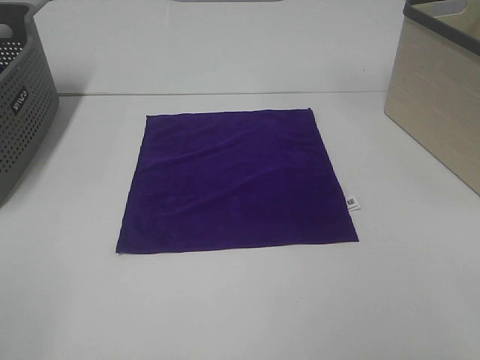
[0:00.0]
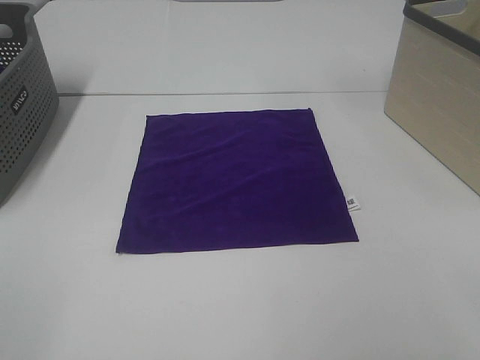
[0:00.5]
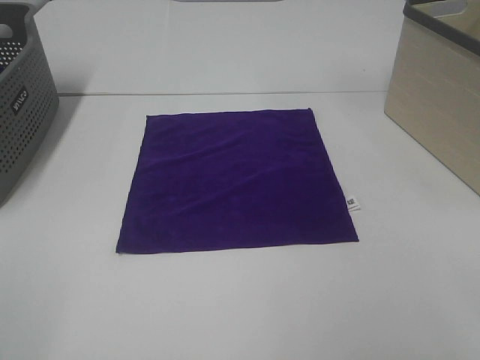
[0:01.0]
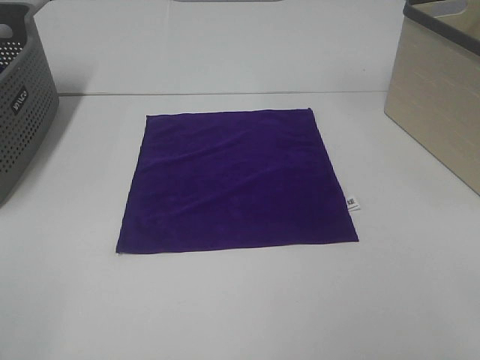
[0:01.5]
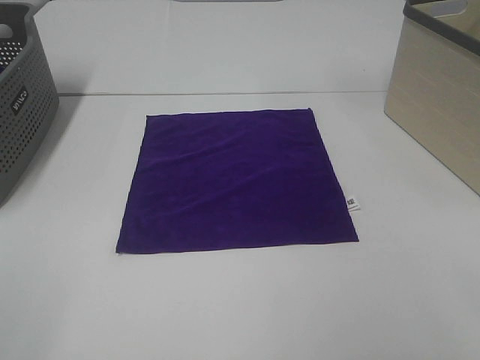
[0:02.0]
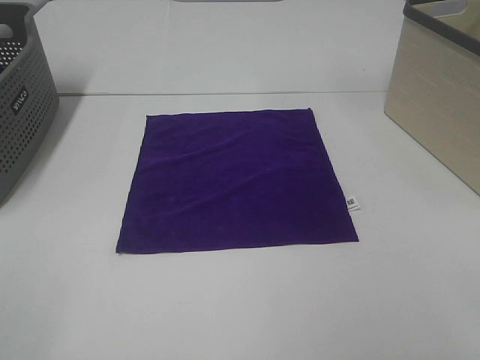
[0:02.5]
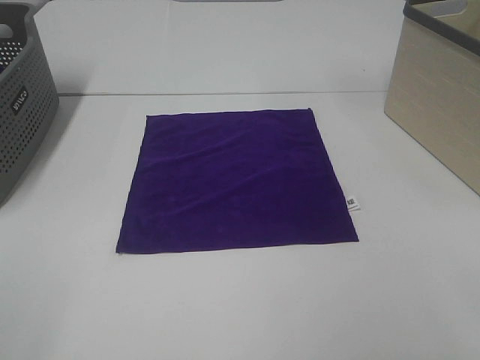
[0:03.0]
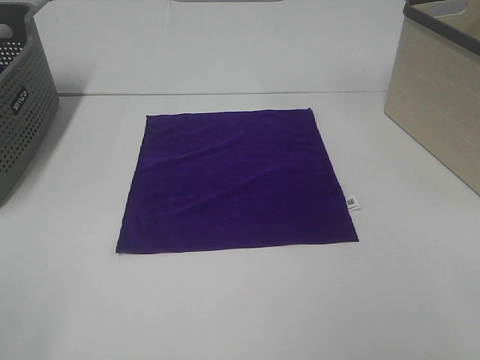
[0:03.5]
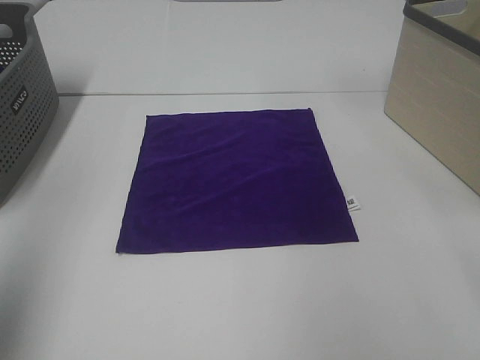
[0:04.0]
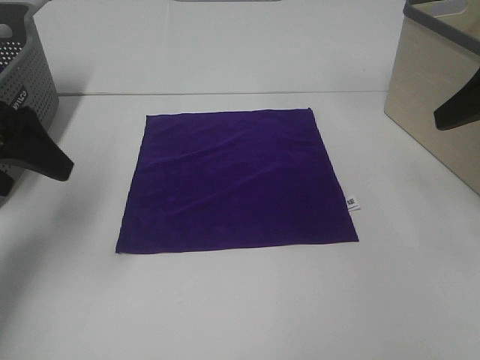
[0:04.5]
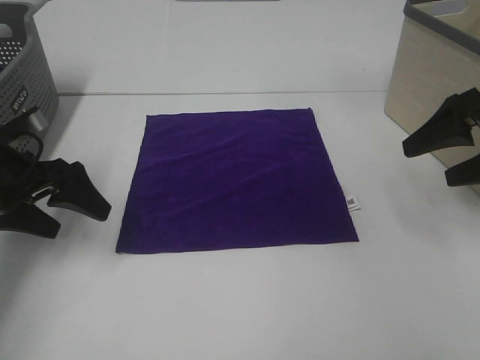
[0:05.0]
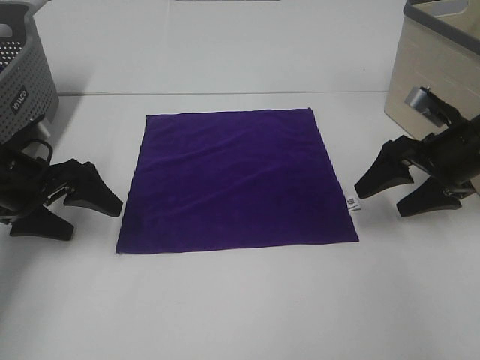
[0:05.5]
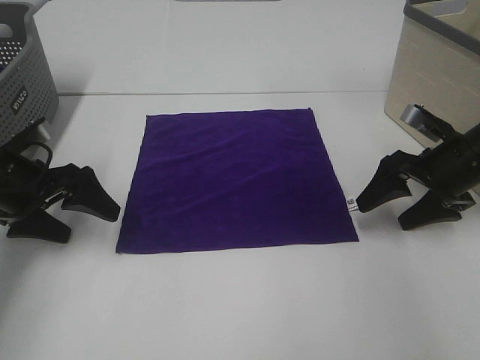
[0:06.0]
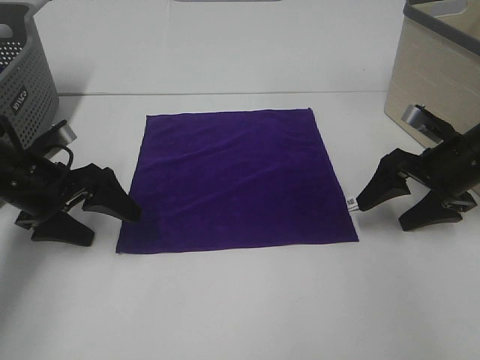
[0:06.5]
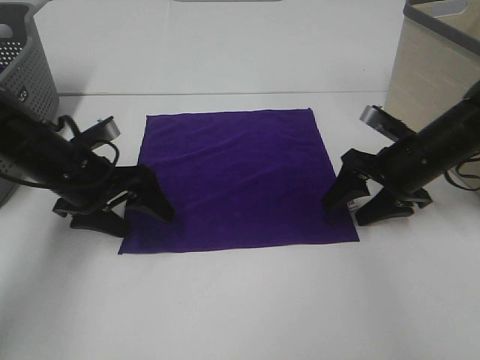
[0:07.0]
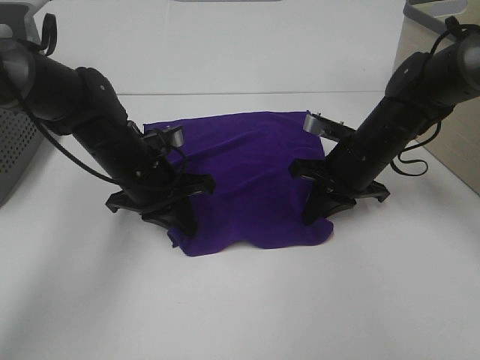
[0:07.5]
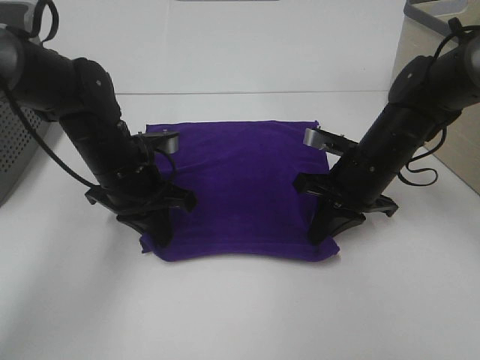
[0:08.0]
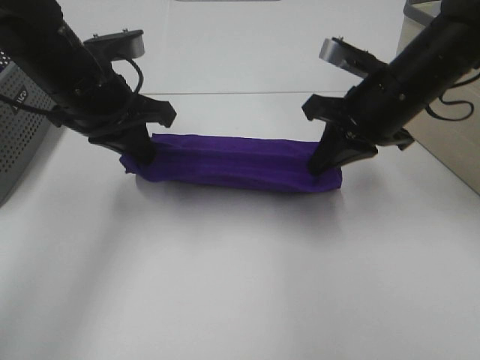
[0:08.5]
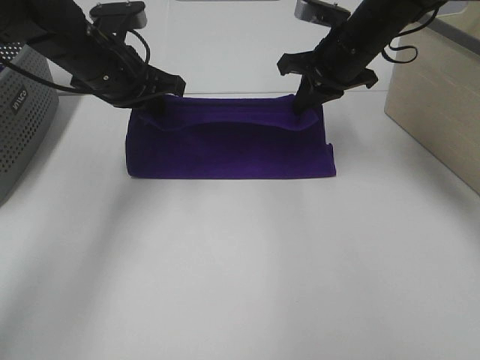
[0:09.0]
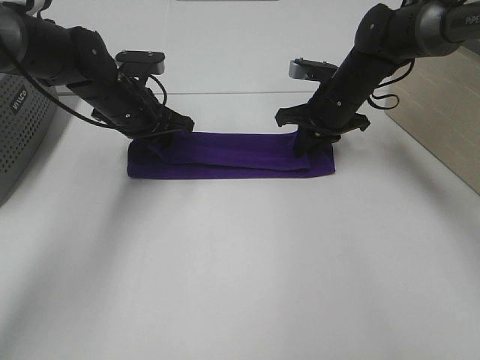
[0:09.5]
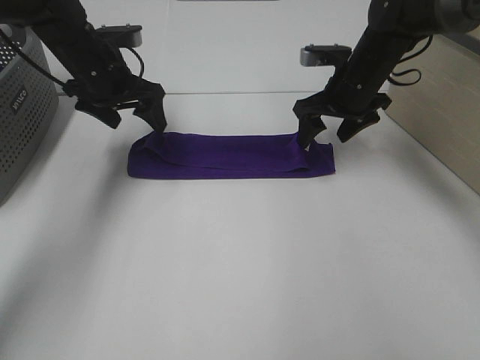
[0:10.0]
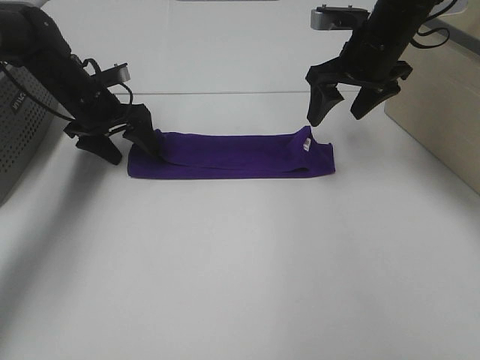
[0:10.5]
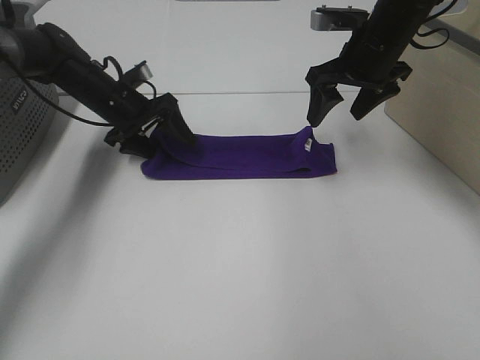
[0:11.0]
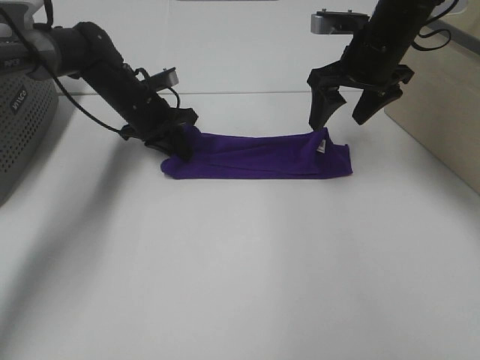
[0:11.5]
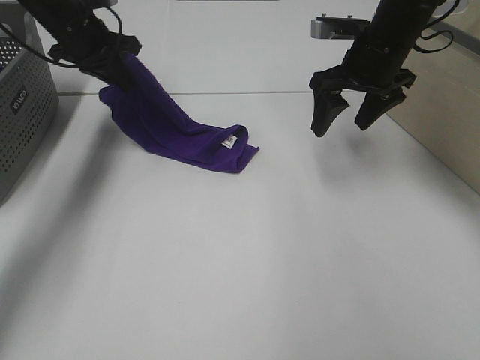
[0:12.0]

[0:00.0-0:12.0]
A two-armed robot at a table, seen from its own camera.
Task of the whole recording: Fold towels.
Step, 0.0 to 7.5 s: Left hand: grab the bottom left corner of purple towel.
Step, 0.0 to 7.5 s: Right hand: grab the bottom right corner of purple towel.
Step, 8.0 to 9.5 s: Left hand: fold the purple towel up.
Step, 8.0 to 9.5 s: Right hand: fold the purple towel up.
0.0 to 2.0 s: Neither gripper changes place.
2.0 to 4.0 s: The left gripper travels forward and upward by about 15 cm.
4.0 to 6.0 s: Both grippers move downward and forward, approximately 30 cm.
6.0 to 8.0 s: The left gripper goes about 15 cm to the right, and closes its fingers. The right gripper is displaced to the left by roughly 10 cm, and closes up.
8.0 to 10.0 s: The left gripper moves forward, upward and to the left, some 15 cm, and opens its fingers; the right gripper is displaced forward and upward by about 15 cm, and opens.
10.0 to 12.0 s: The left gripper goes roughly 5 cm forward, moves roughly 10 cm downward and comes back, and closes its fingers. Meanwhile the right gripper heads upward, covering roughly 5 cm.

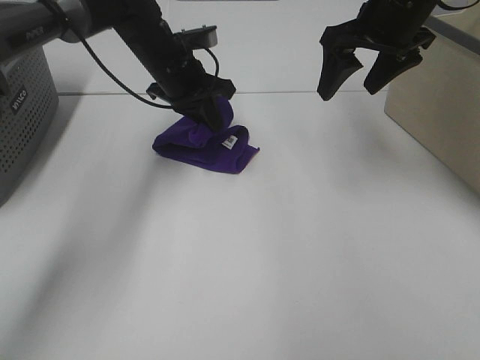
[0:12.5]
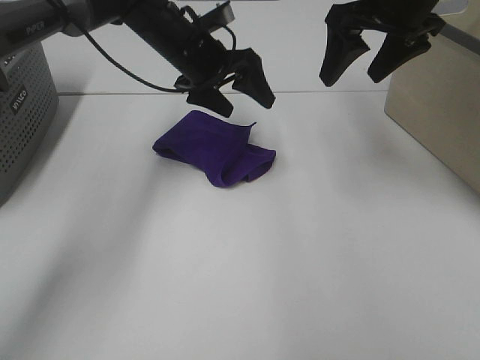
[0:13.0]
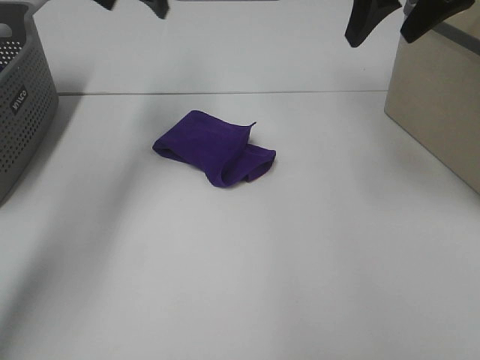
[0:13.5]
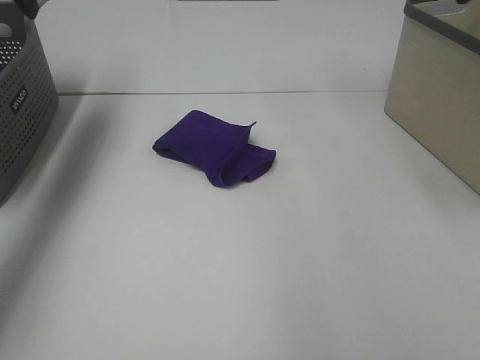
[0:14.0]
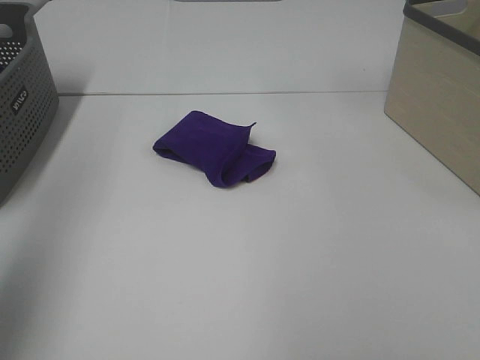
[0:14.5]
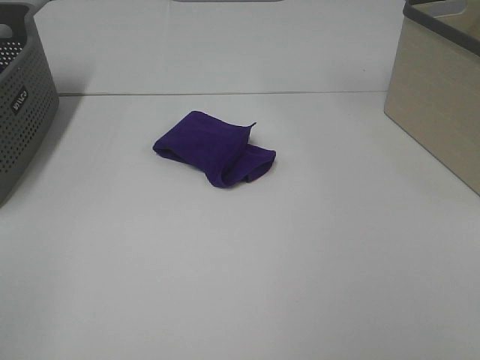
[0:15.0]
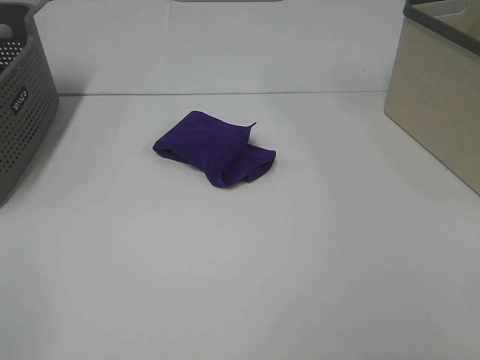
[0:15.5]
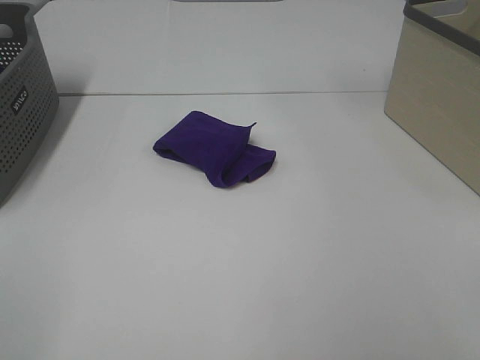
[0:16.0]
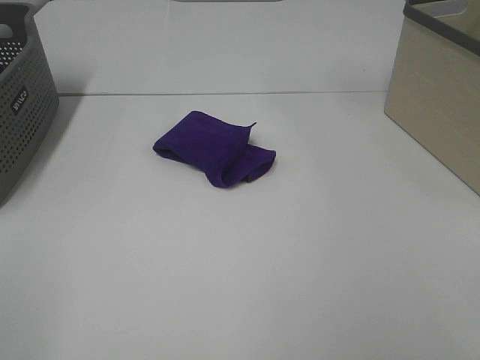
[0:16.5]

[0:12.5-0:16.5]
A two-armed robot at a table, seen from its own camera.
Task of the whole recording: Fold towels.
12.5 to 14.5 s: The left gripper shifts roughly 50 cm backward, upward and to the left, and opens up, while the right gripper goes some 35 cm backward.
14.5 to 16.5 s: The left gripper shifts roughly 20 cm backward and downward.

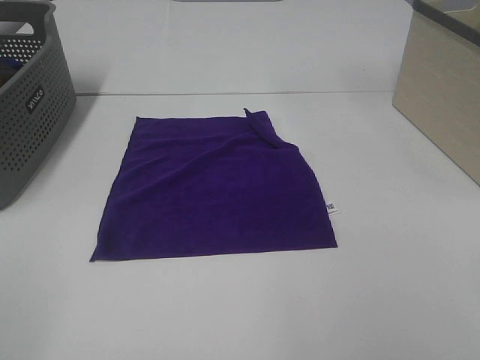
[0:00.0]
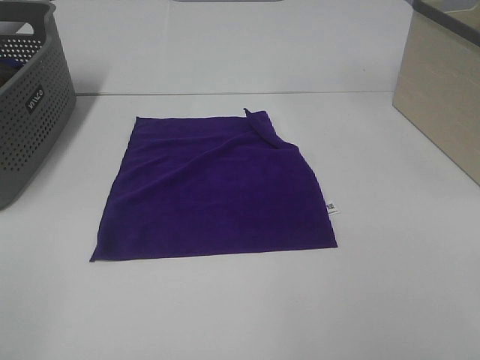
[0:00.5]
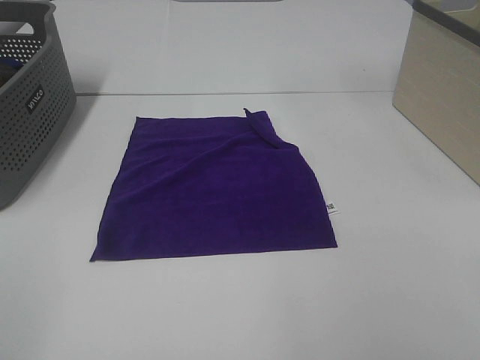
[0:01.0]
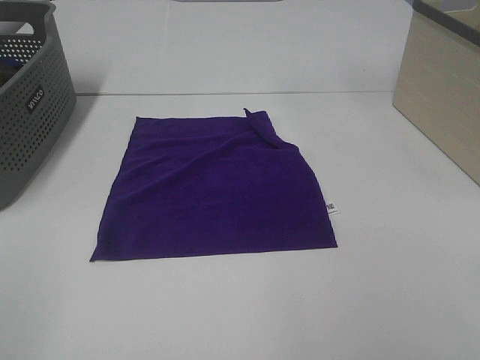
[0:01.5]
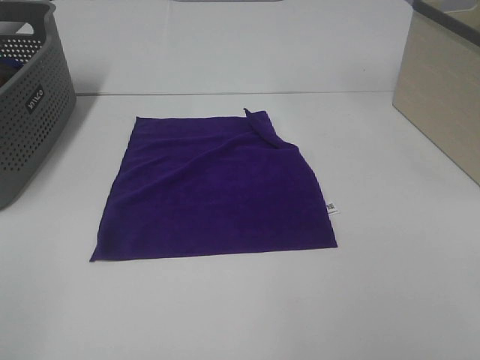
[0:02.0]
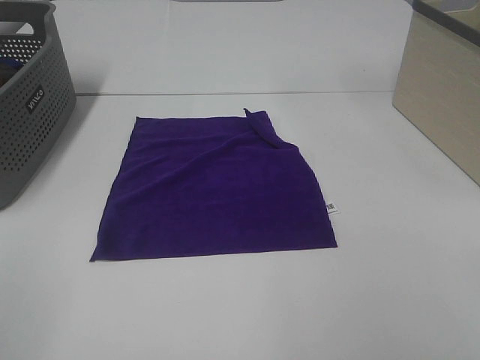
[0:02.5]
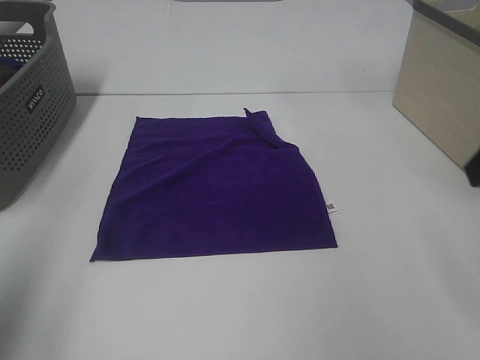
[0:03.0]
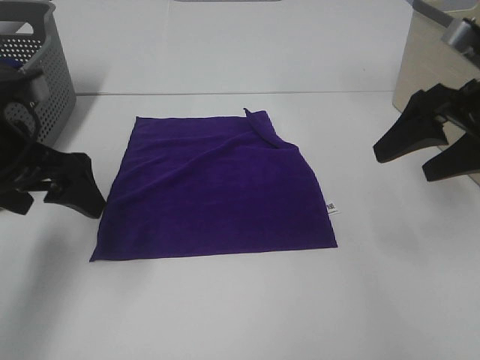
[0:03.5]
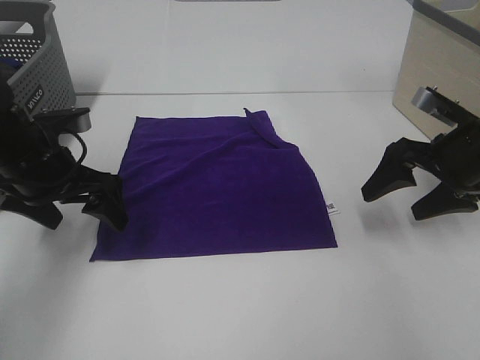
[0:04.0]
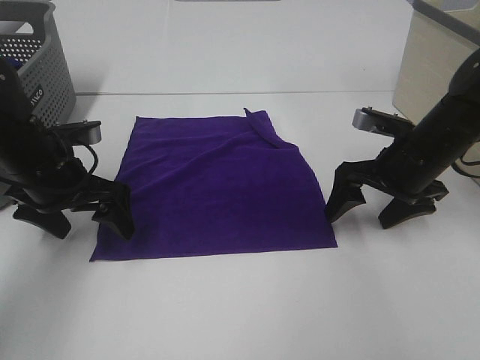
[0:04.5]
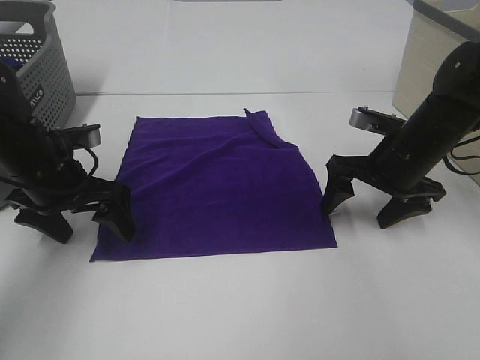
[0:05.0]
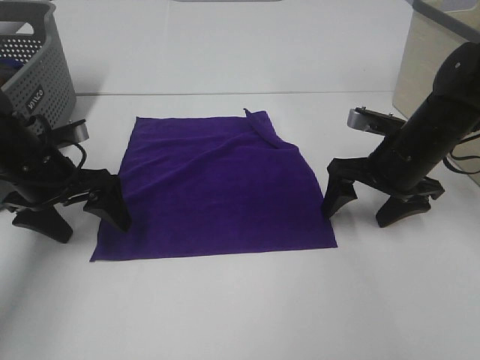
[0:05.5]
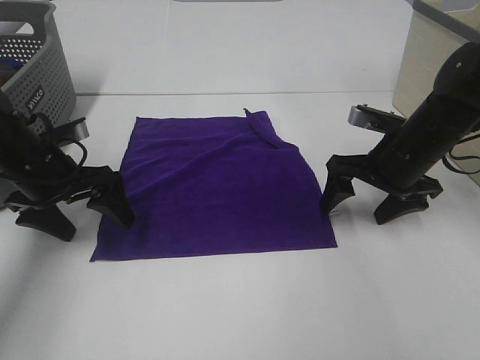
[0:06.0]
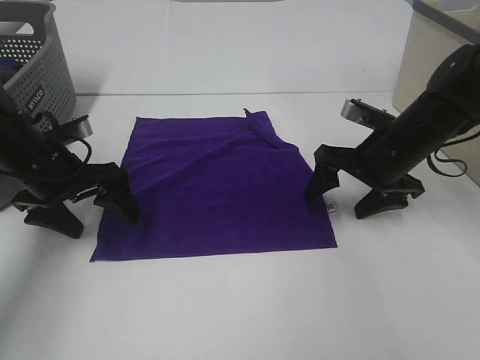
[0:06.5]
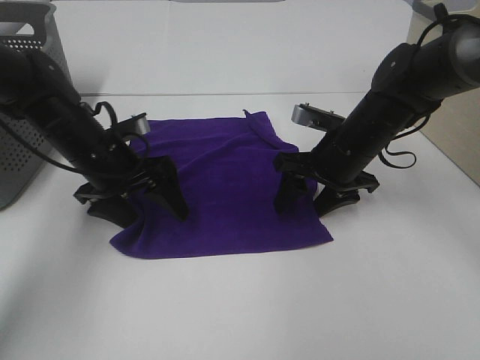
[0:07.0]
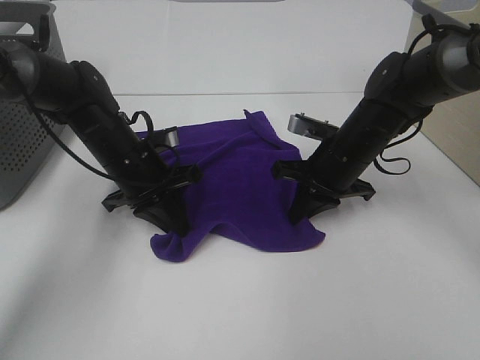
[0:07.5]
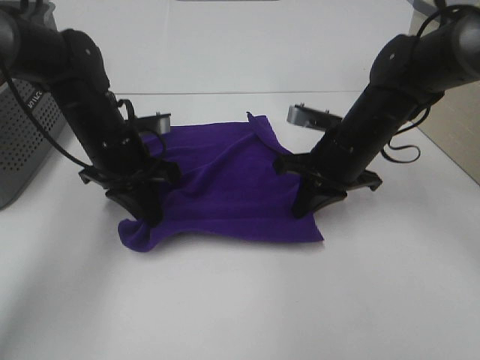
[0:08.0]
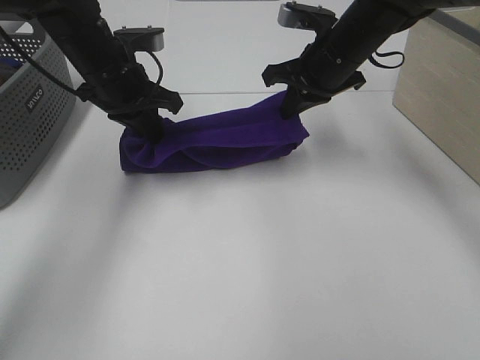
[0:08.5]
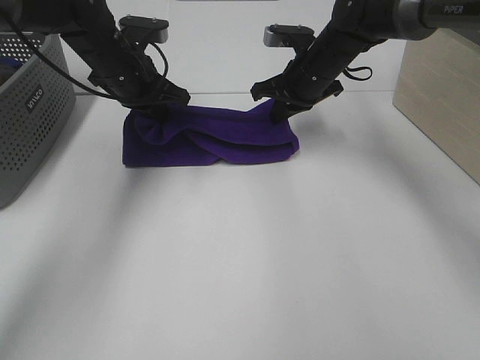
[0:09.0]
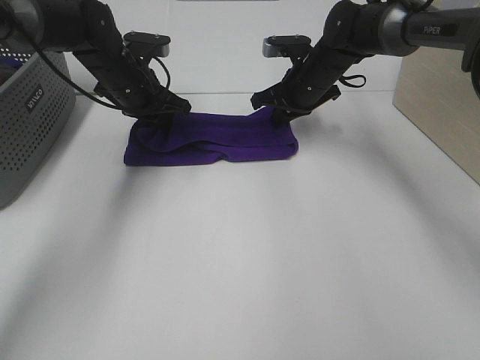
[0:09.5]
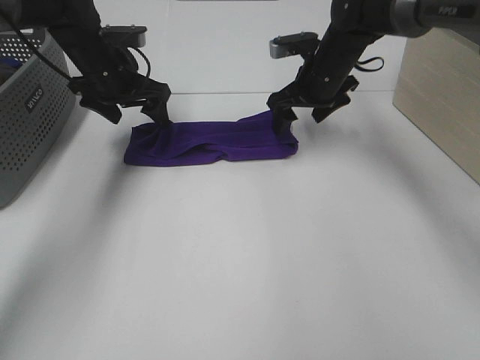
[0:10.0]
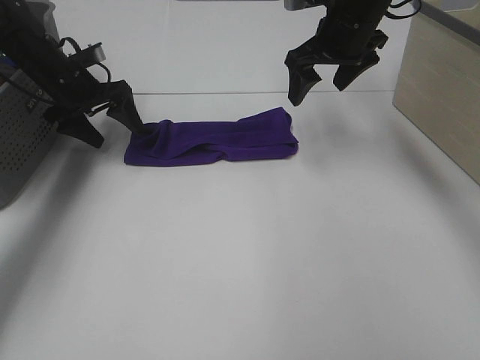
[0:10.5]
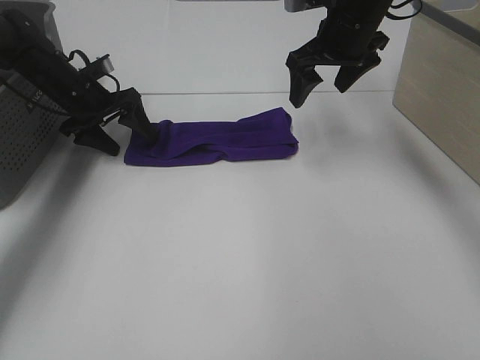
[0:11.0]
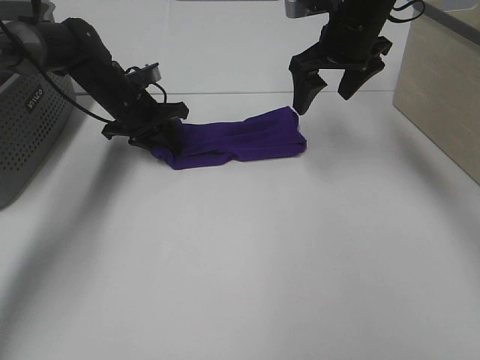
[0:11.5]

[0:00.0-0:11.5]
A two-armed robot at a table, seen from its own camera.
Task of the whole recording: Fold towels.
Step, 0.0 to 7.0 s: Left hand: grab the bottom left corner of purple towel.
Step, 0.0 to 7.0 s: Right hand: grab the bottom right corner of purple towel.
Step, 7.5 to 9.5 s: Left hand: fold the purple towel up.
Step, 7.5 to 9.5 s: Right hand: fold the purple towel up.
0.0 to 2.0 s: Neither gripper changes place.
2.0 to 4.0 s: The grippers both shift forward and downward by about 35 cm.
4.0 to 6.0 s: The right gripper moves to the left, some 5 cm.
6.0 to 7.5 s: The right gripper shifts roughly 5 cm to the left, and closes up; the left gripper heads to the right, covering about 10 cm, and closes.
7.5 to 9.5 s: The left gripper heads forward and upward, covering about 10 cm. Meanwhile the right gripper travels forward by about 15 cm.
9.5 to 11.5 s: The left gripper goes to the left and returns, approximately 10 cm each way, and opens, then closes once more. The right gripper shifts roughly 10 cm upward and backward, and opens up.
